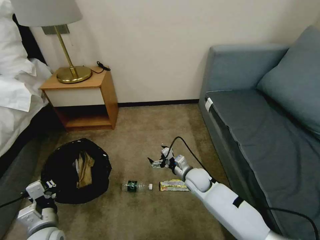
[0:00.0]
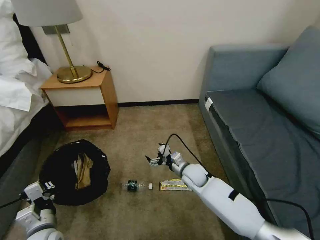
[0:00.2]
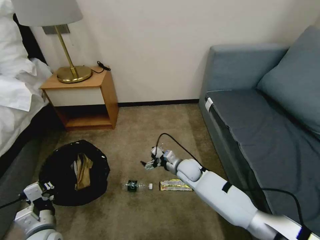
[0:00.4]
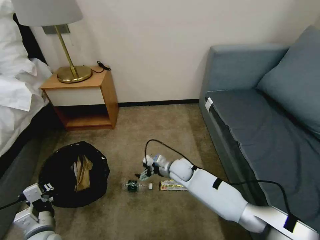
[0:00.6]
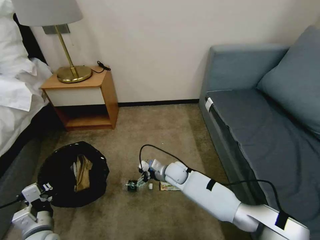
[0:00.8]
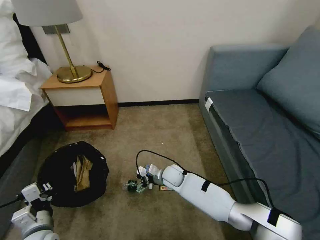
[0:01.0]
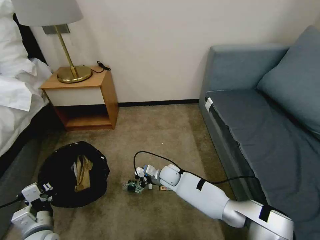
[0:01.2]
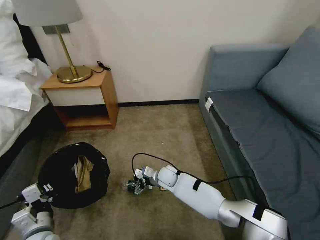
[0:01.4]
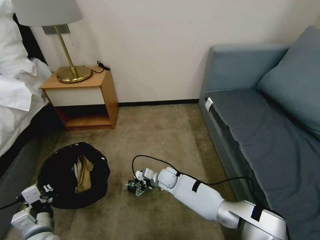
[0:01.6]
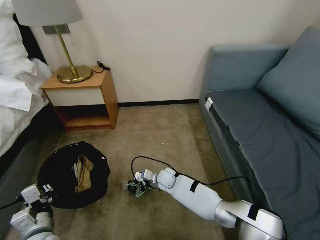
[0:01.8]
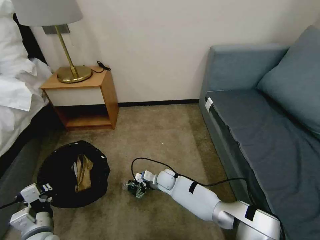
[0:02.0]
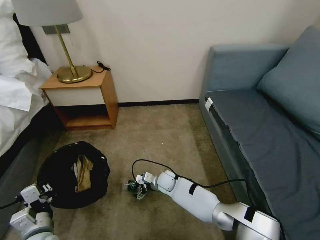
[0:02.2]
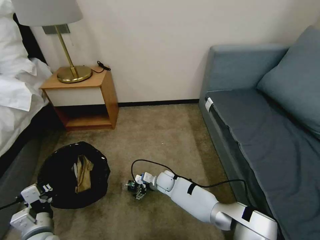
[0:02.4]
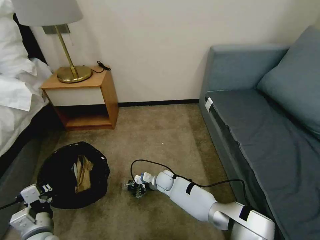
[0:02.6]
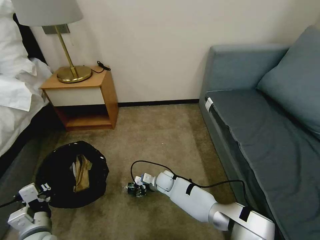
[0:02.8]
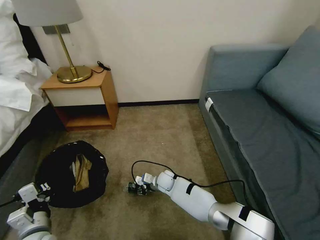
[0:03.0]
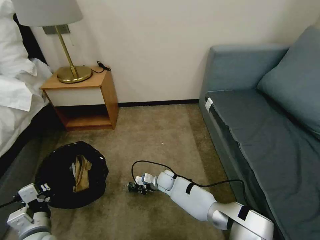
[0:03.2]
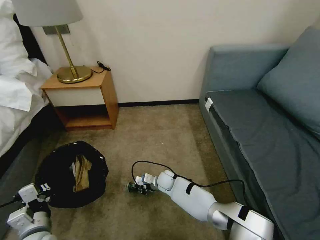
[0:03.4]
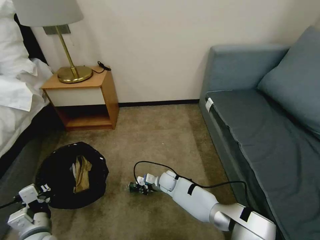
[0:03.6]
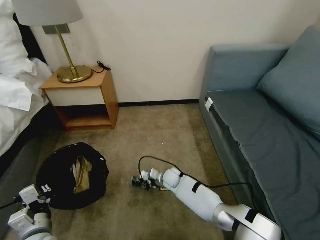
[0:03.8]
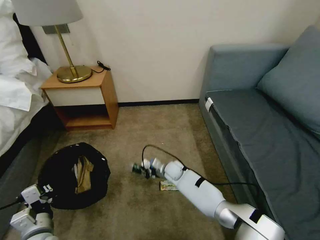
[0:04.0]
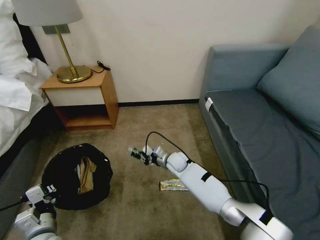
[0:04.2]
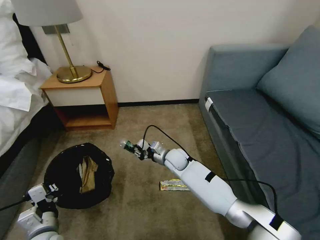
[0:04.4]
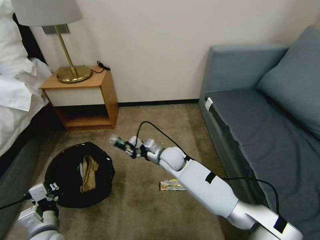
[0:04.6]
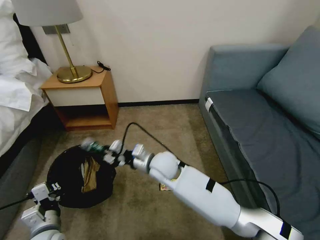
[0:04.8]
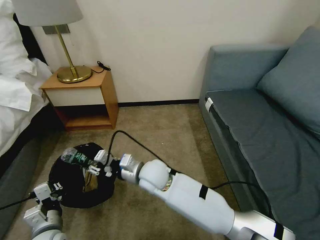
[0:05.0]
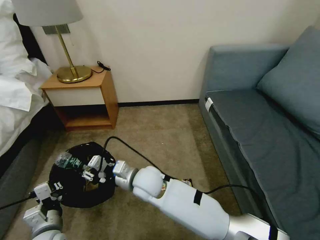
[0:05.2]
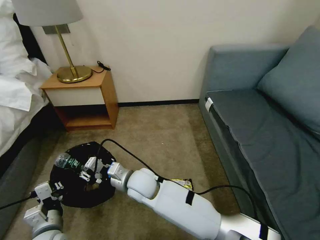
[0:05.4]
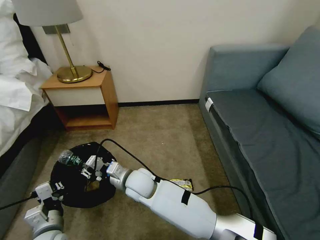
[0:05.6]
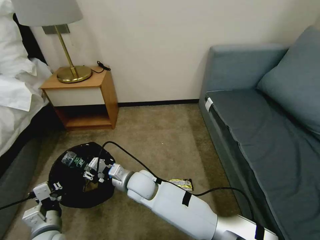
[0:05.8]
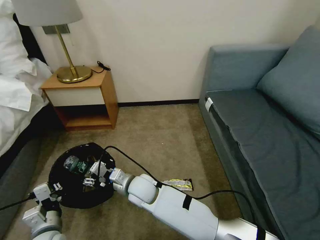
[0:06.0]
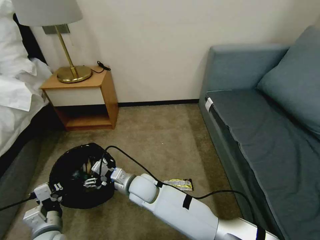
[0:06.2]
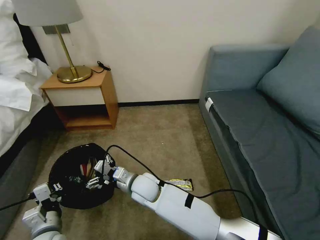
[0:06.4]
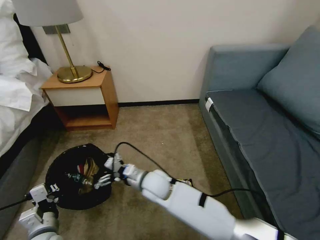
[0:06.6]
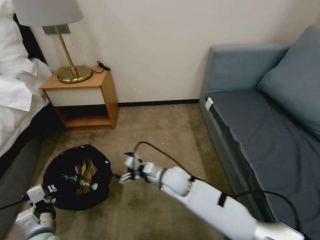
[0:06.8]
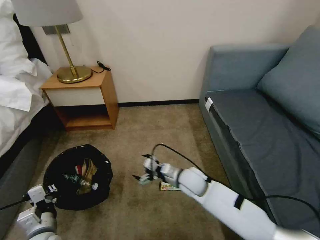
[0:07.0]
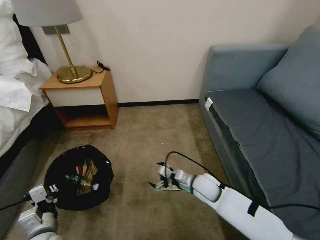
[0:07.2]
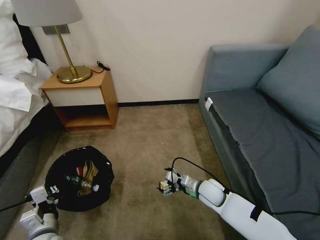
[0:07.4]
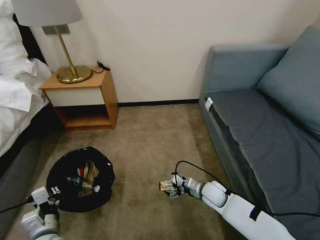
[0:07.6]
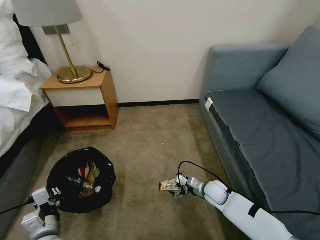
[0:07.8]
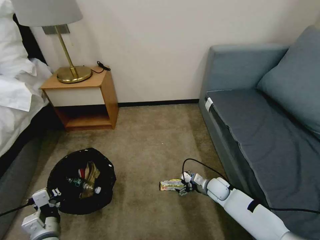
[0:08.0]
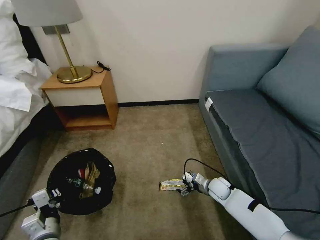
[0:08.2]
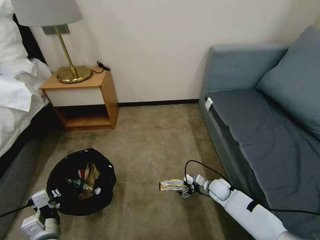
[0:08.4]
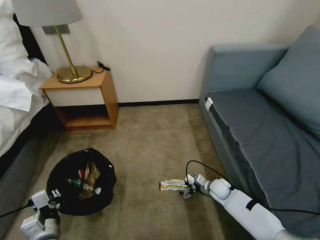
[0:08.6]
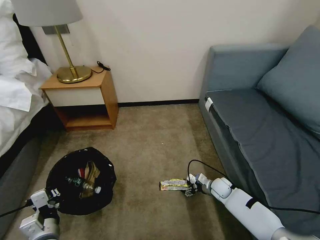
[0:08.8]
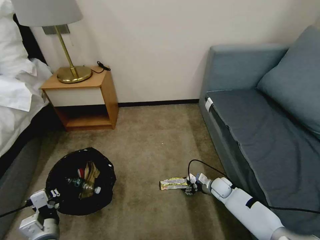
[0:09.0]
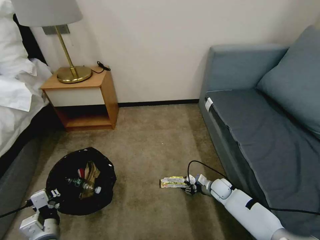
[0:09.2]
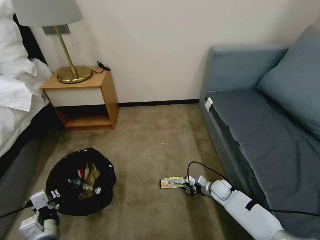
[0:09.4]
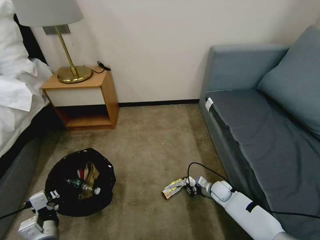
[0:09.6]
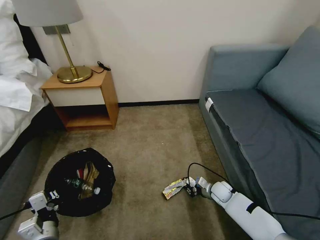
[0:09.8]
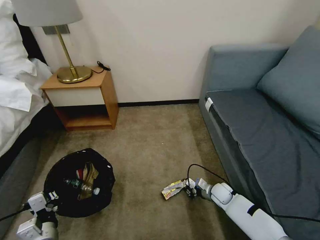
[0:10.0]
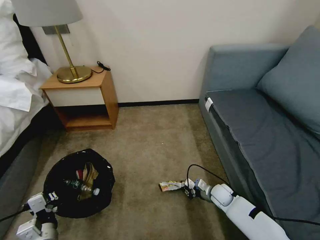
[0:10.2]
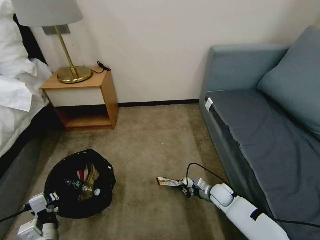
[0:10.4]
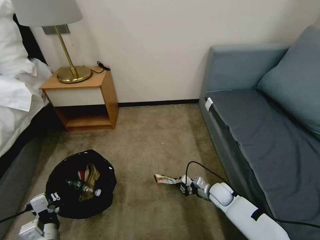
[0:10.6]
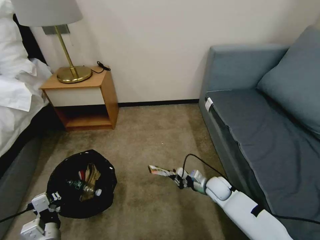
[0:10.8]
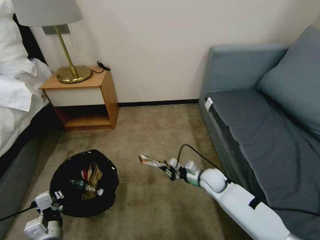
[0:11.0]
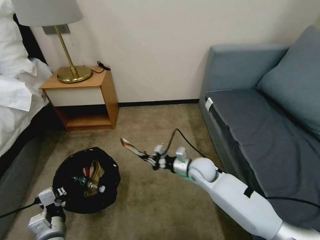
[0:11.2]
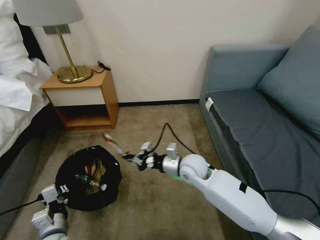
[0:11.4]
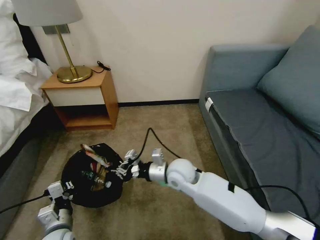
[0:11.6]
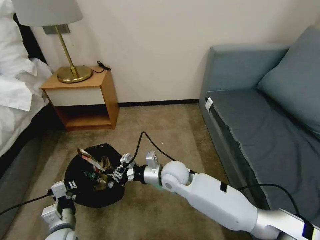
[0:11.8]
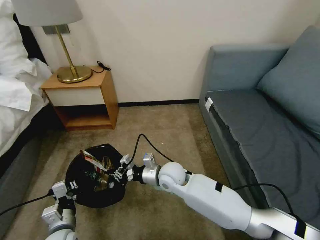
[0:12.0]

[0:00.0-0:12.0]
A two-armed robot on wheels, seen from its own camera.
Task of the whole recording: Pick up the trash bin, then pick up the garbage on the floor and place it into the trash bin.
0.0 to 1.6 s: The right gripper travels to the left and downward by about 15 cm.
1.6 to 3.0 s: The right gripper closes its fingers.
3.0 to 4.4 s: The right gripper shifts some 10 cm upward.
4.4 to 6.0 s: The right gripper is displaced backward and to the left by approximately 20 cm, and opens.
6.0 to 7.6 s: The right gripper is displaced to the right by about 30 cm, and opens.
7.6 to 9.0 s: The right gripper moves to the right and downward, about 10 cm.
9.0 to 10.4 s: The right gripper closes up.
10.4 to 12.0 s: The right gripper shifts approximately 30 cm to the left and upward.

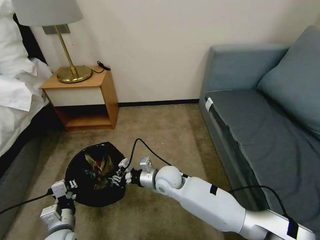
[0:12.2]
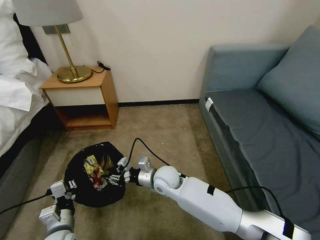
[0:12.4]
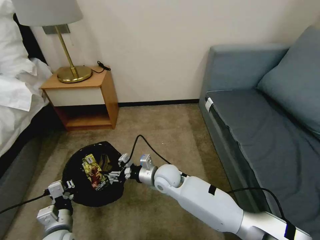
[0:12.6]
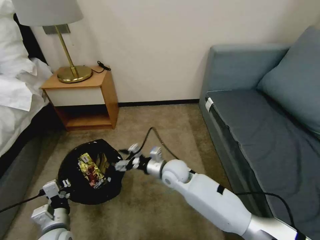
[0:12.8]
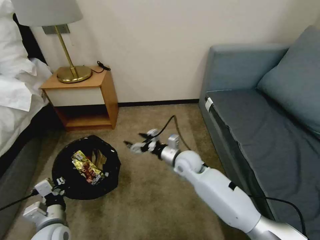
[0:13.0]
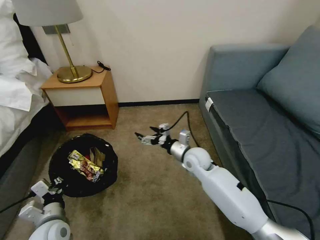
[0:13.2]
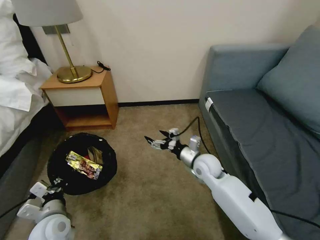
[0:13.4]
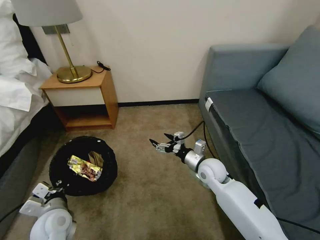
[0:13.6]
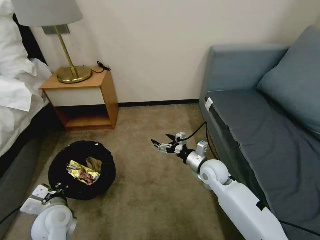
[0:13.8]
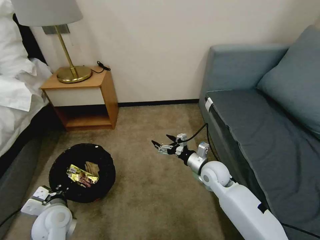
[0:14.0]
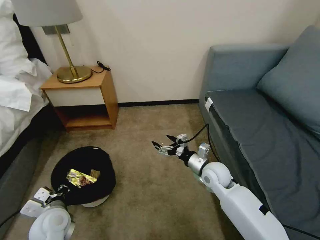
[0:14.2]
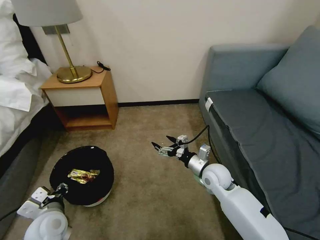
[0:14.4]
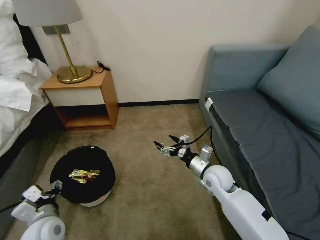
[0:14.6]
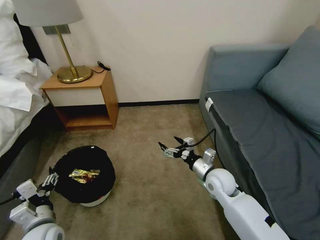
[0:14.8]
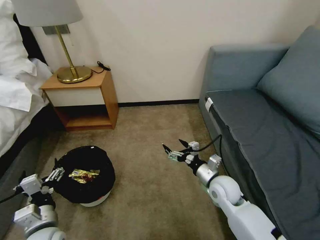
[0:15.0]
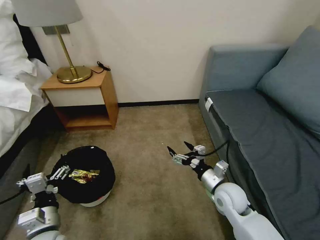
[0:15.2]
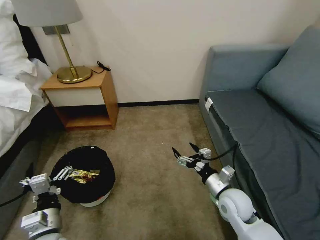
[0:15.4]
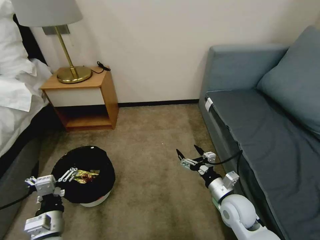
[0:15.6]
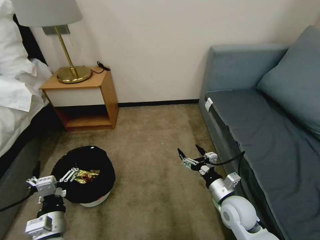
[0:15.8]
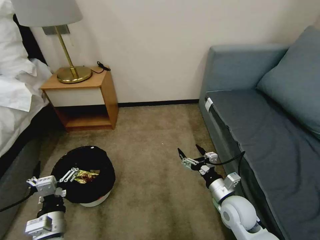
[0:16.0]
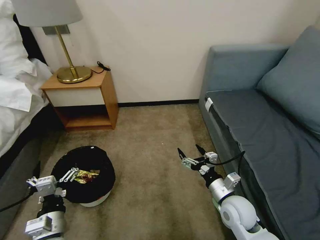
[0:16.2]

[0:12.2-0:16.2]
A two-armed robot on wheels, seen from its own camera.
Task of the whole recording: Pick up the trash bin, then pick up the garbage on the floor and place it into the trash bin.
12.2 to 13.6 s: The right gripper travels to the right by approximately 15 cm, and opens up. Meanwhile the left gripper shifts by approximately 5 cm.
13.6 to 14.8 s: The left gripper opens.
14.8 to 16.2 s: The right gripper shifts roughly 10 cm backward.

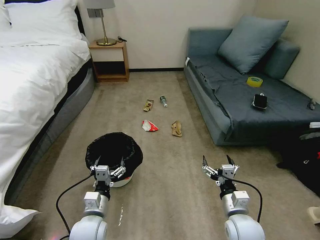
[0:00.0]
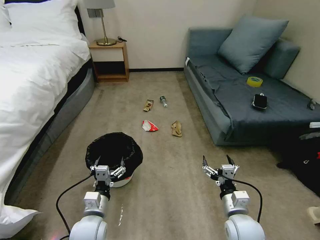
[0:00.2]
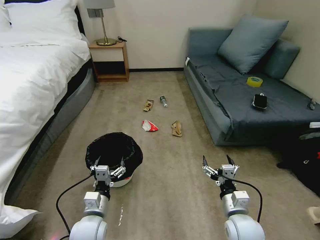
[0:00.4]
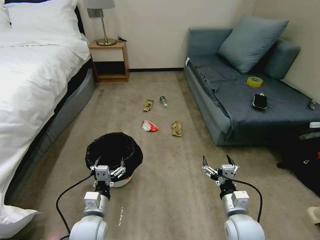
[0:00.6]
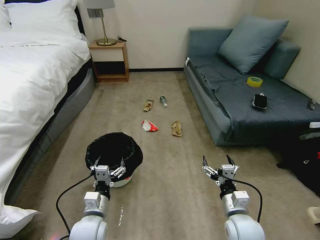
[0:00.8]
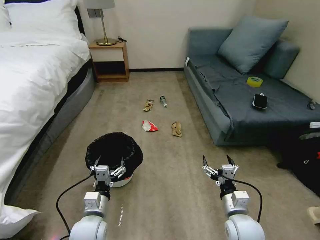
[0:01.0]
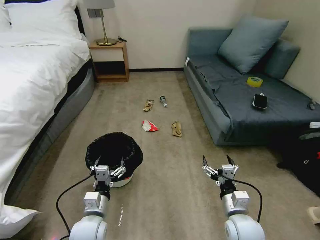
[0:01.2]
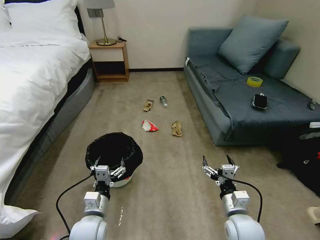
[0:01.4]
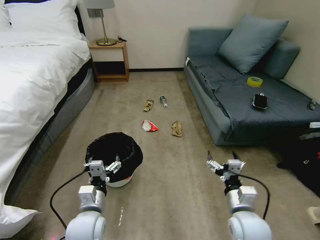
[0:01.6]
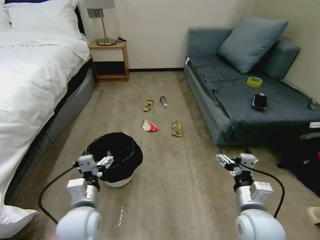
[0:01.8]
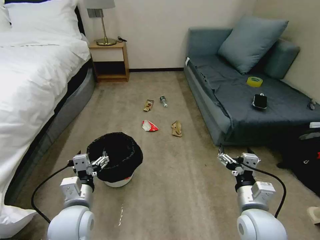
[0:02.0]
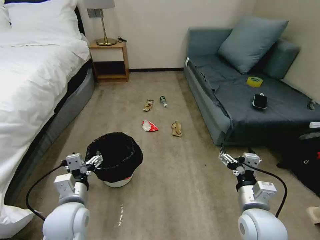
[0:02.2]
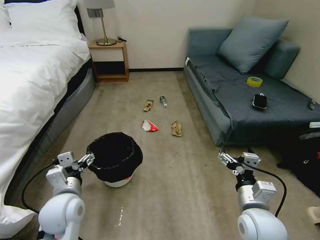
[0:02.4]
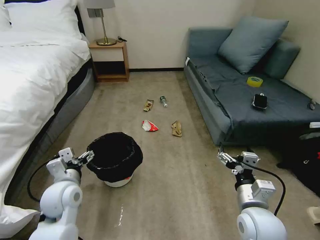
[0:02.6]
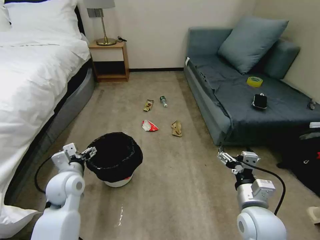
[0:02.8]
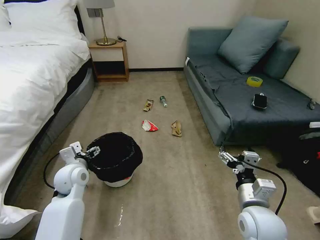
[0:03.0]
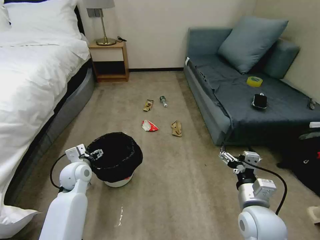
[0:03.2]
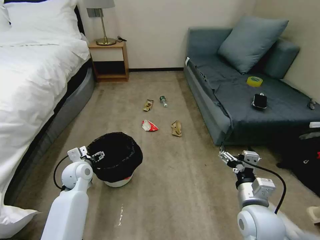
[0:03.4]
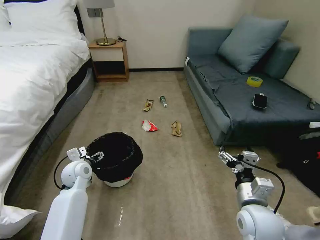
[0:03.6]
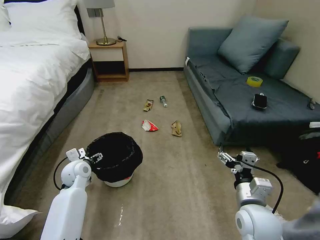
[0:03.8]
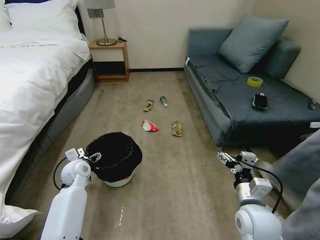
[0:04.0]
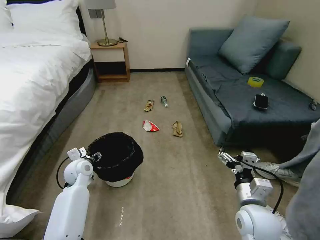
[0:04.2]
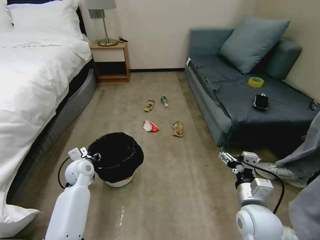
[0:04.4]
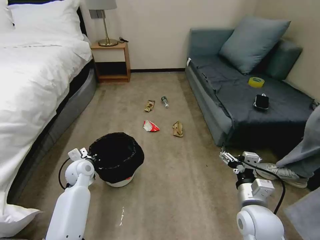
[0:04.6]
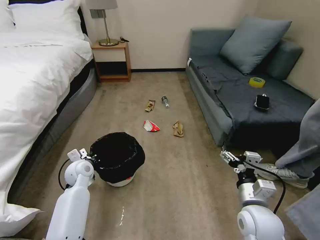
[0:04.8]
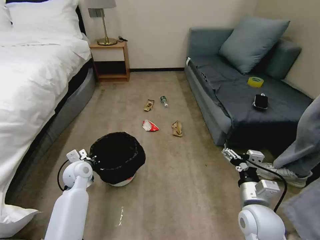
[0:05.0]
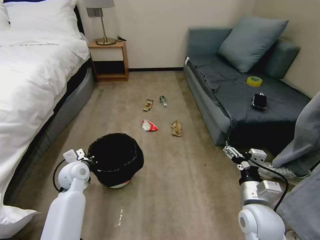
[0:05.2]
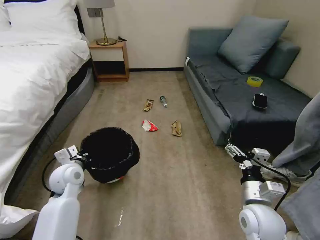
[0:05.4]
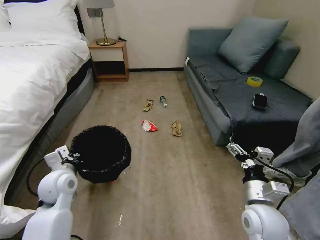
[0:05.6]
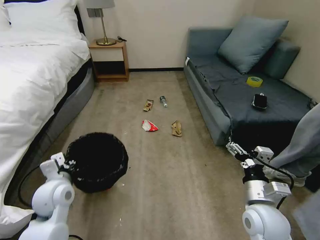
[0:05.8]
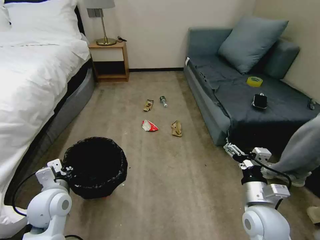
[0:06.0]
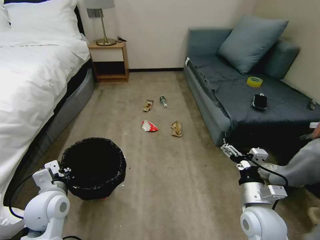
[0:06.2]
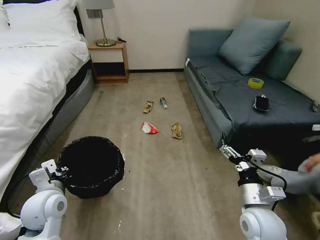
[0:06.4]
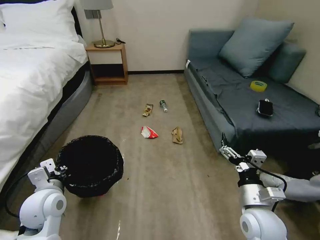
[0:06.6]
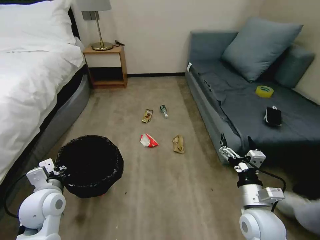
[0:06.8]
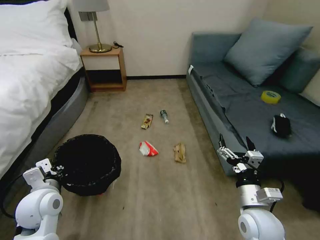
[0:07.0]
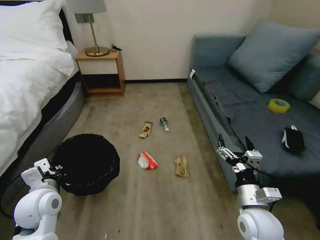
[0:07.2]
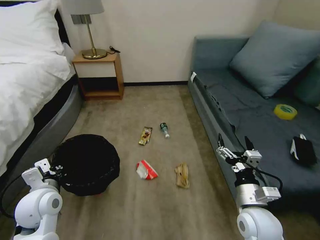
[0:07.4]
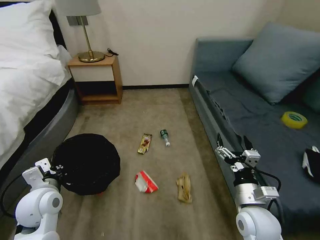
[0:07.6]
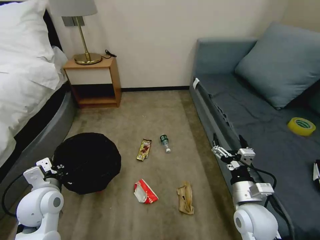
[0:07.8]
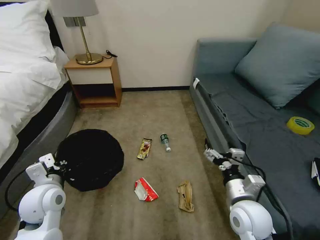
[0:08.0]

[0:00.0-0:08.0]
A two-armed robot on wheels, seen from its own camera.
Task of the whole recording: Pick up the trash bin, then pick up the garbage on the floor and place it into the trash bin.
1.6 to 3.2 s: The left gripper shifts about 20 cm forward and to the left.
3.2 to 4.8 s: The left gripper closes its fingers.
4.8 to 6.4 s: The left gripper heads backward and upward, covering about 15 cm.
